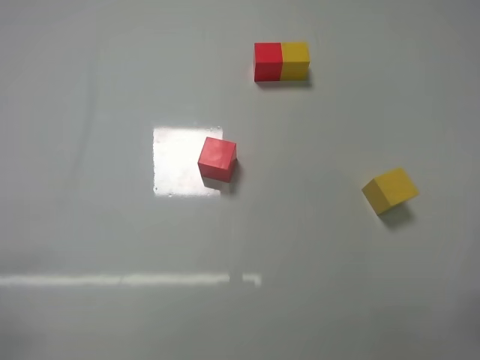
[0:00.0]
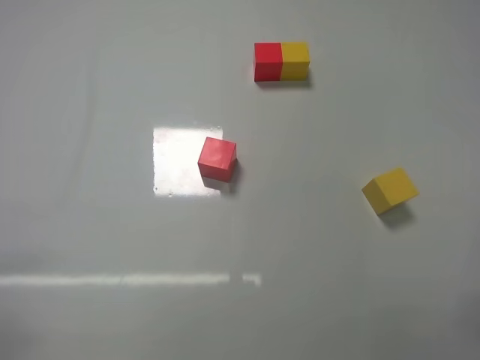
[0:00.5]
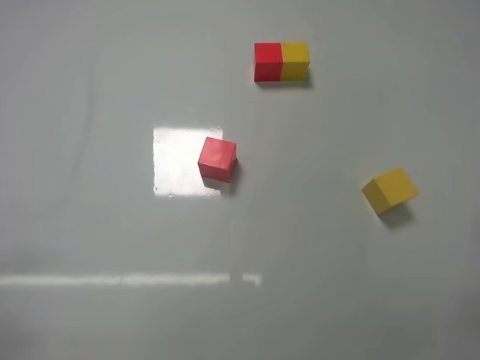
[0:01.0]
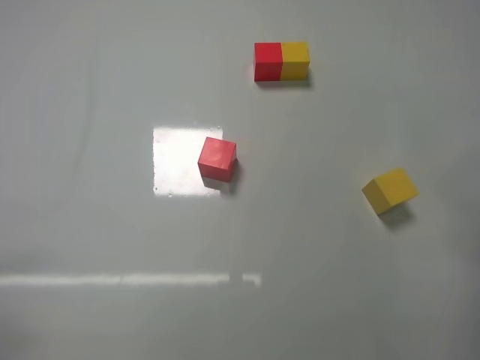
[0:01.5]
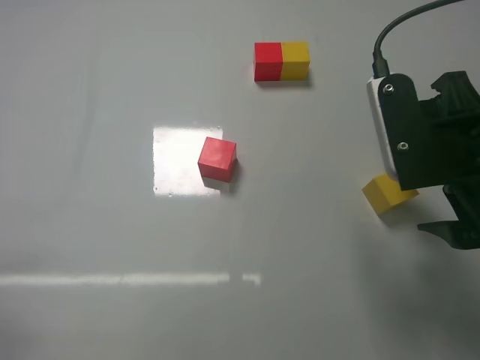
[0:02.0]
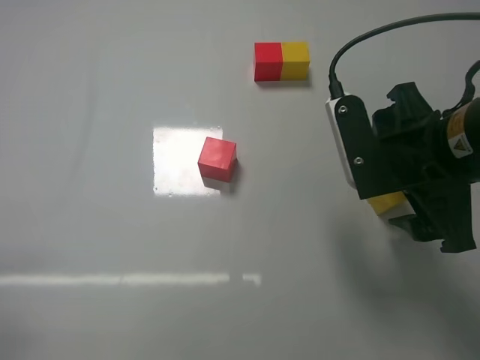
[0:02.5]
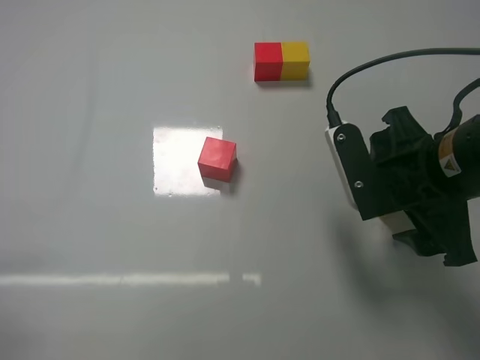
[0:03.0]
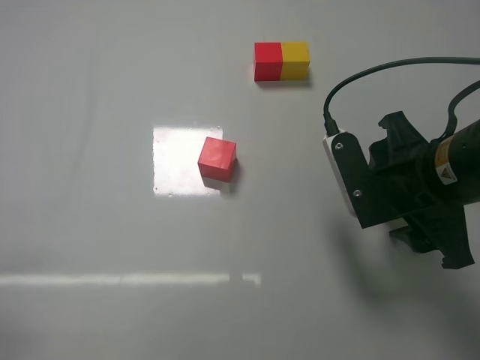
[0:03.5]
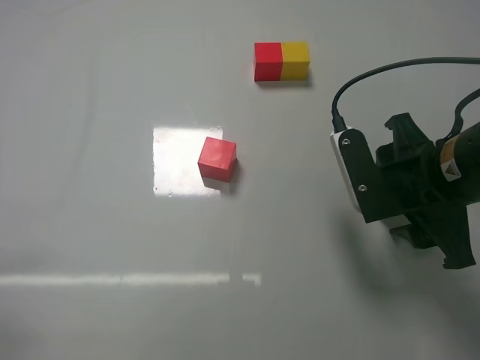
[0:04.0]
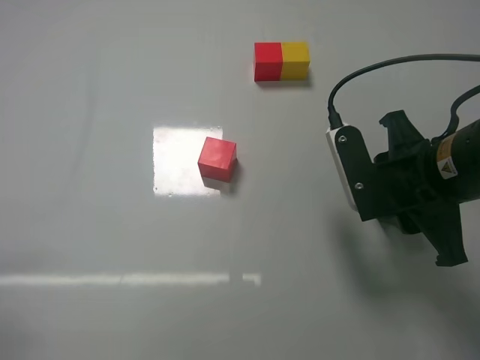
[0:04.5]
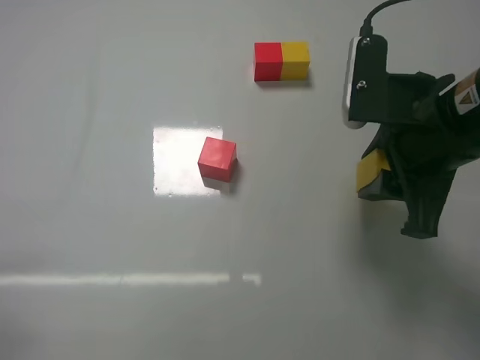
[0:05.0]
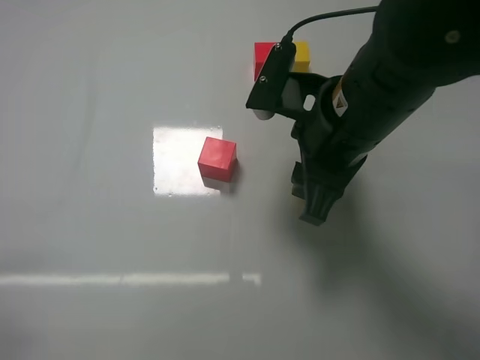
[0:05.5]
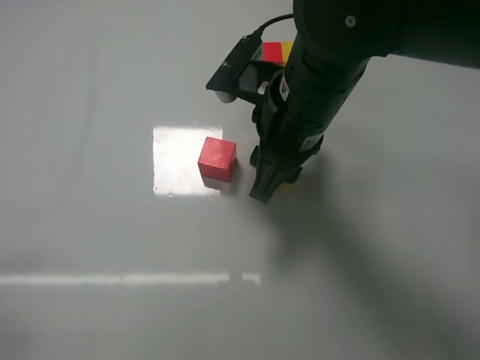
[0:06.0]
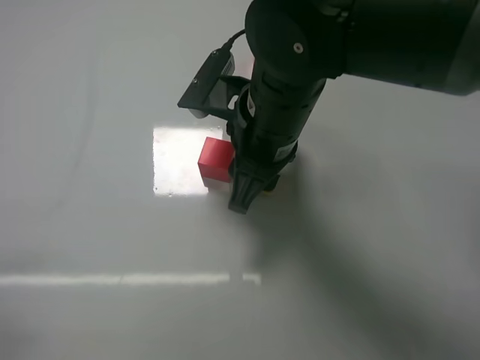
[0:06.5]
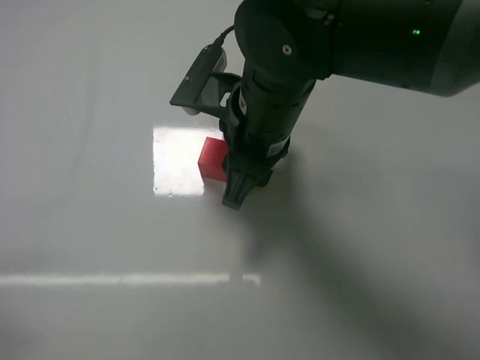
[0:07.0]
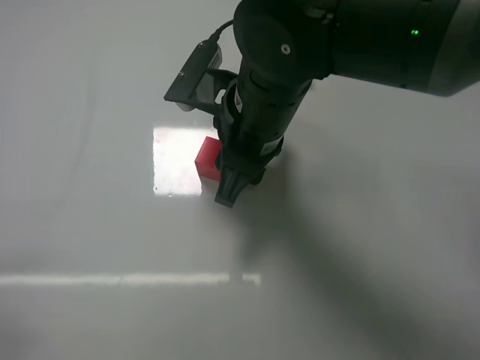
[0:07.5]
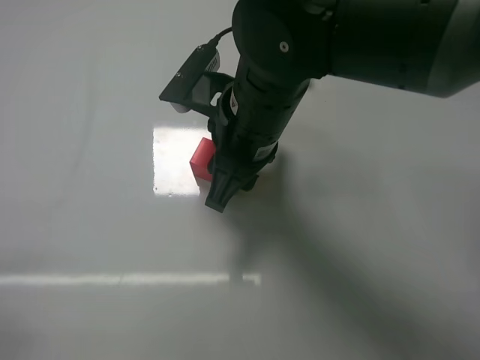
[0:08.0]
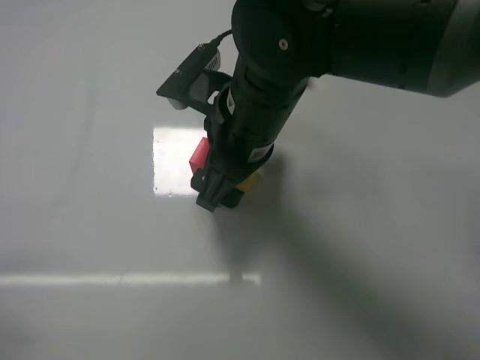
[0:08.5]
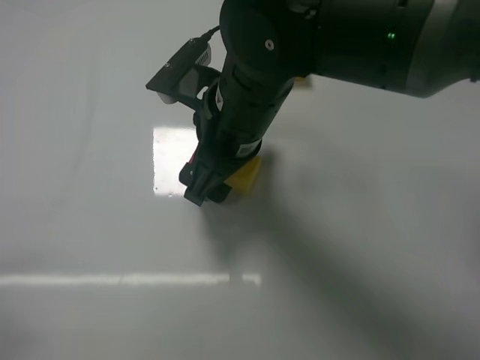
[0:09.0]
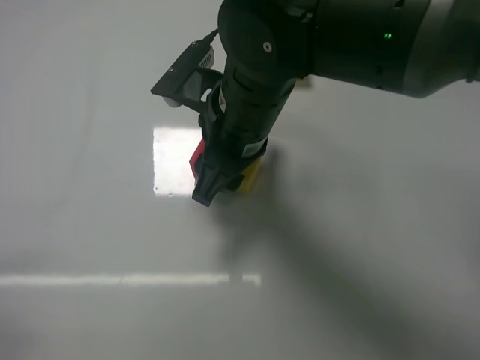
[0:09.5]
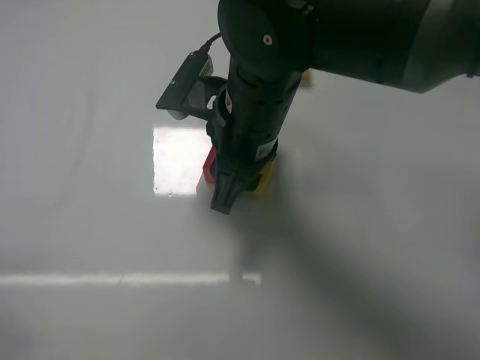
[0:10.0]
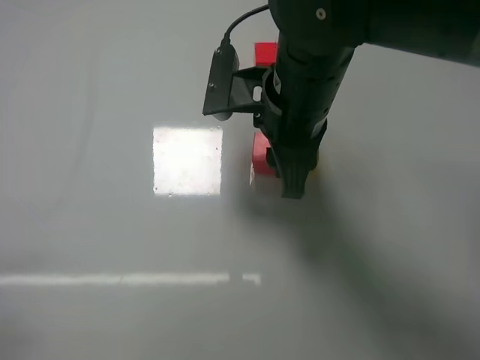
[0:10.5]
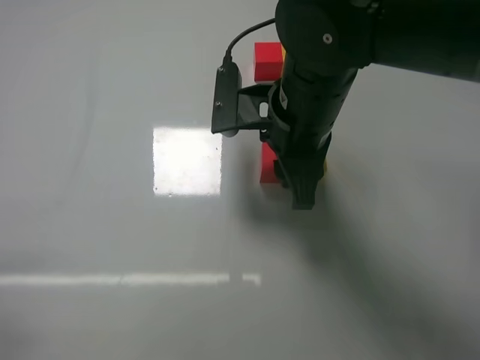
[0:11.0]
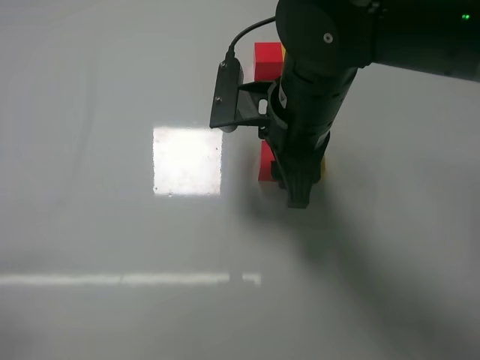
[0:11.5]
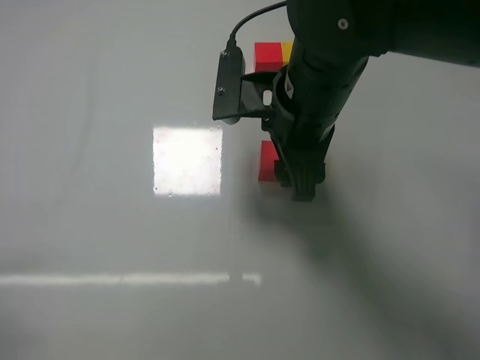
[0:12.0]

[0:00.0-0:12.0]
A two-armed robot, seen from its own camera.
Task of the whole recording: According to the building block template in front, assemble the scattered blocks together.
Step, 0:00.0 to 0:04.0: Grasp the yellow block with right gripper.
Step, 0:04.5 to 0:08.5: Put the yellow cube on the right of the red cube with the right gripper.
0:00.0 to 0:02.0: The right gripper shifts roughly 25 cm forward, to the left and upward.
0:02.0 to 0:04.0: The right gripper moves roughly 5 cm, and closes.
0:04.0 to 0:06.0: The right gripper moves to the left, roughly 15 cm, and closes its fingers.
0:06.0 to 0:08.0: The grippers move only a little.
0:08.0 to 0:10.0: The right gripper opens, then closes once more.
0:10.0 to 0:12.0: The right gripper shifts approximately 5 cm to the right, and opens.

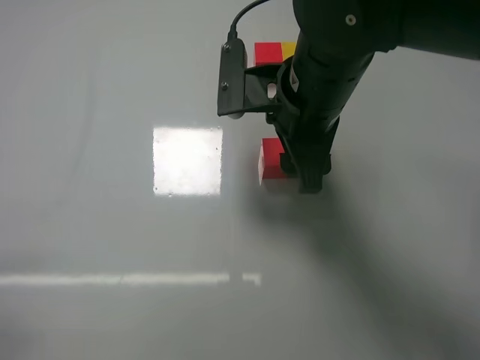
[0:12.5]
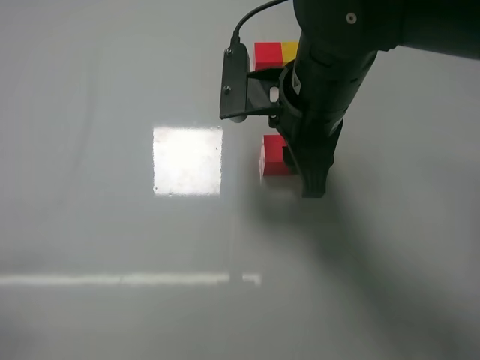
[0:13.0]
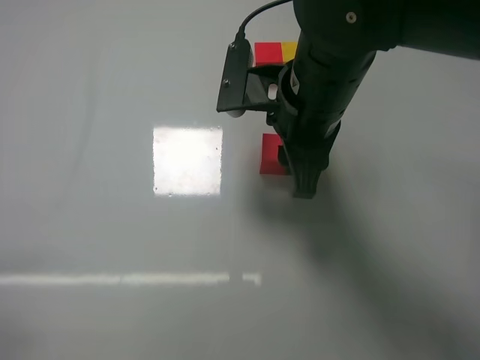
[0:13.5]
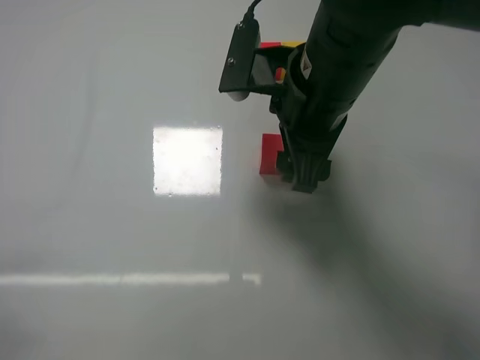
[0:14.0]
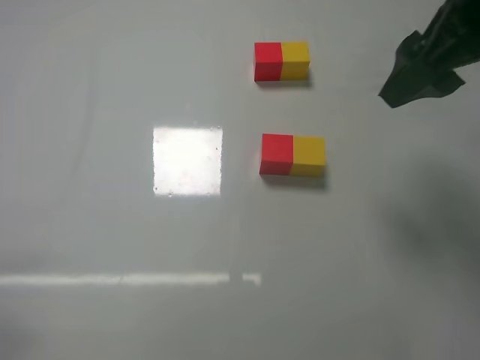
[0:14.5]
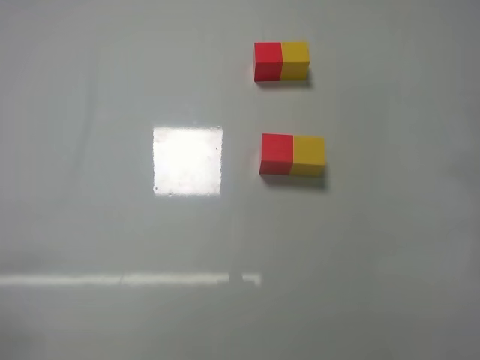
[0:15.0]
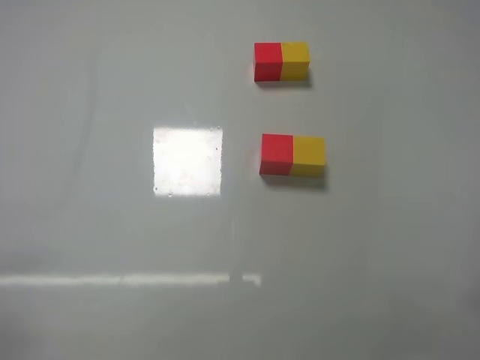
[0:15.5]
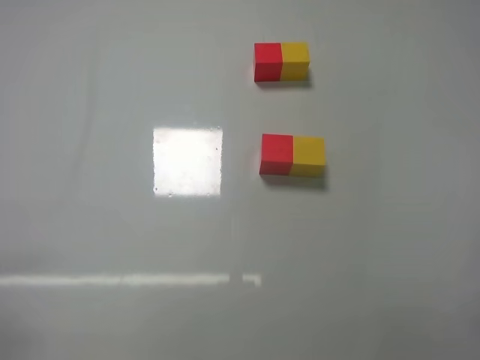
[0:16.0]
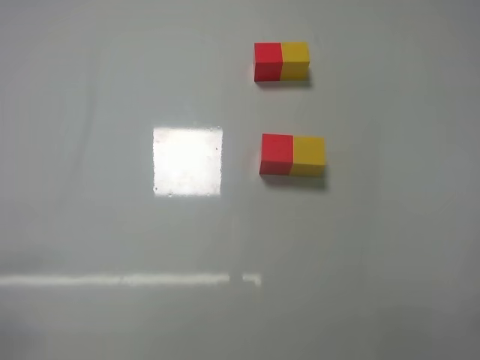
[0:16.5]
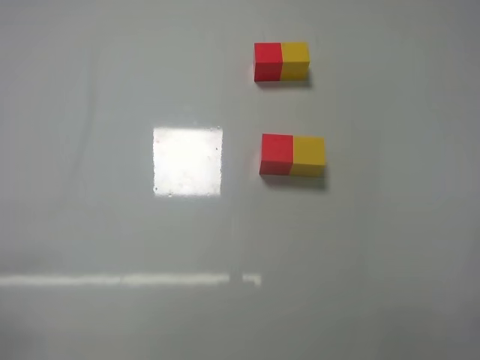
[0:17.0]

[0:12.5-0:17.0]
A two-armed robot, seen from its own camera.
Task of the whole recording: According to the building block template in front, assemble the scattered blocks together.
0:12.5 to 0:14.5: The right gripper travels to the right and upward by roughly 15 cm, and closes, then reopens.
0:14.5 to 0:17.0: The right gripper moves backward, downward and to the right, approximately 30 cm.
